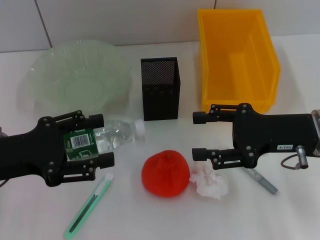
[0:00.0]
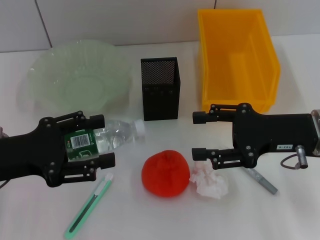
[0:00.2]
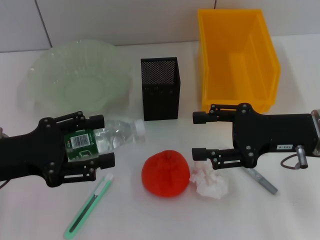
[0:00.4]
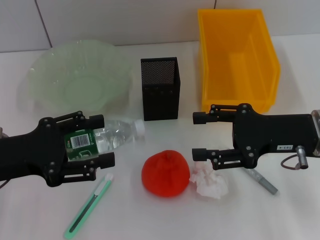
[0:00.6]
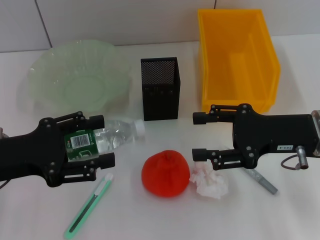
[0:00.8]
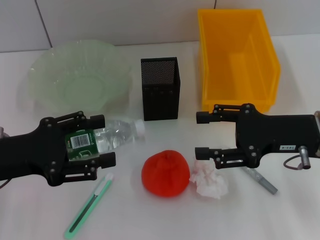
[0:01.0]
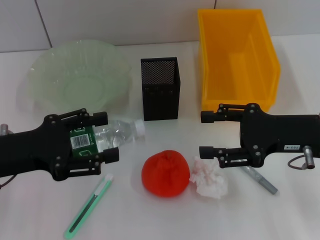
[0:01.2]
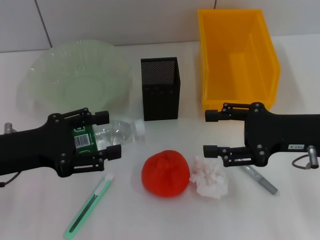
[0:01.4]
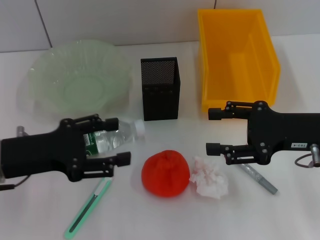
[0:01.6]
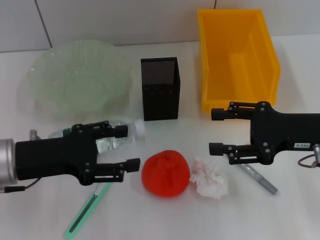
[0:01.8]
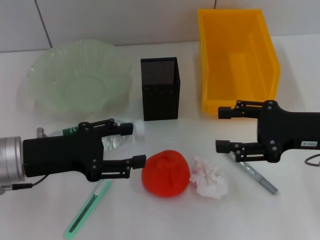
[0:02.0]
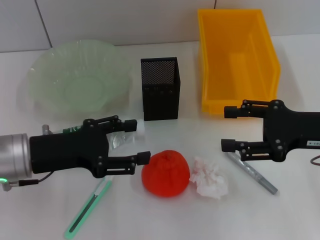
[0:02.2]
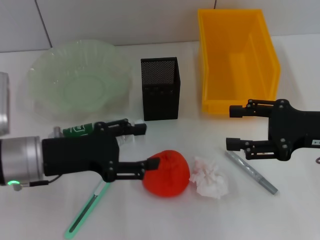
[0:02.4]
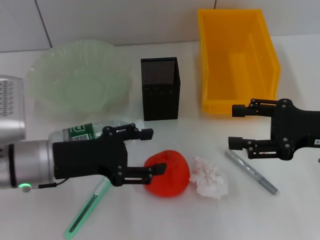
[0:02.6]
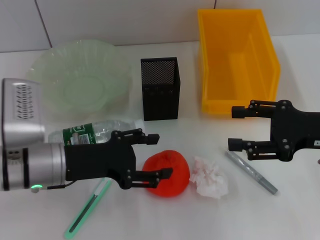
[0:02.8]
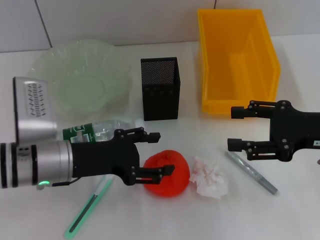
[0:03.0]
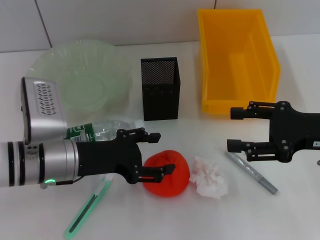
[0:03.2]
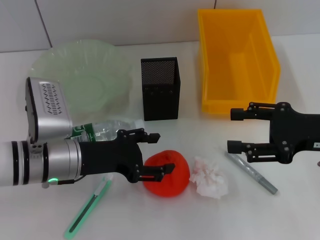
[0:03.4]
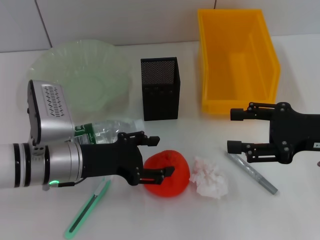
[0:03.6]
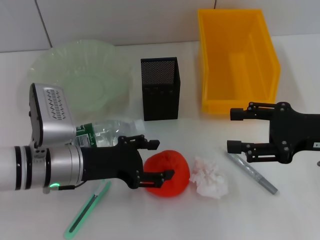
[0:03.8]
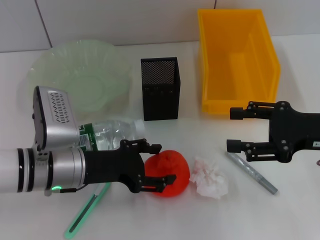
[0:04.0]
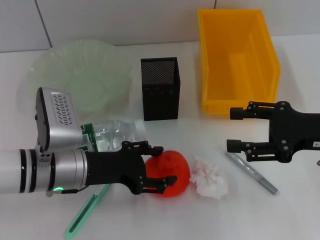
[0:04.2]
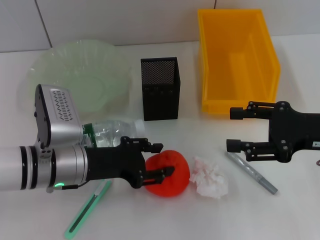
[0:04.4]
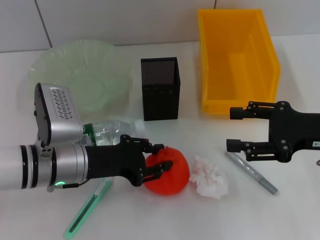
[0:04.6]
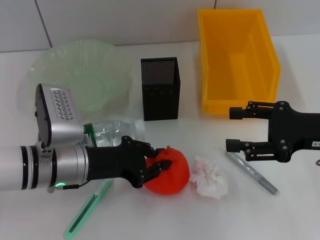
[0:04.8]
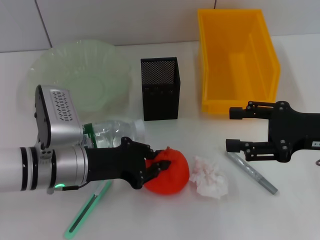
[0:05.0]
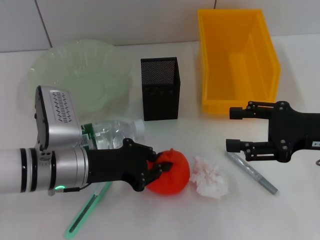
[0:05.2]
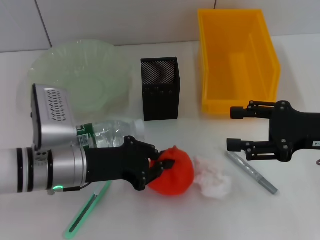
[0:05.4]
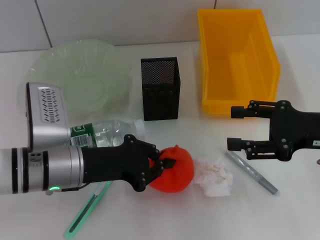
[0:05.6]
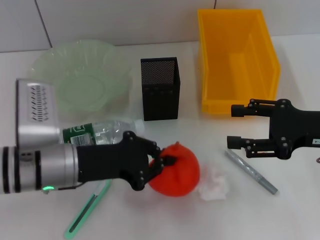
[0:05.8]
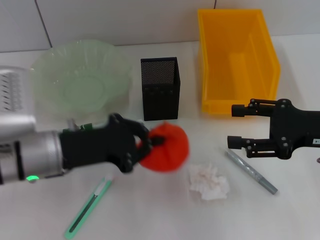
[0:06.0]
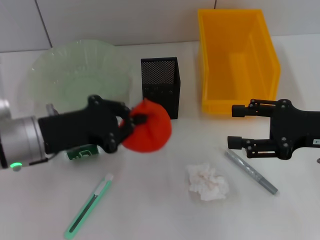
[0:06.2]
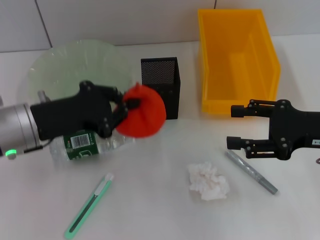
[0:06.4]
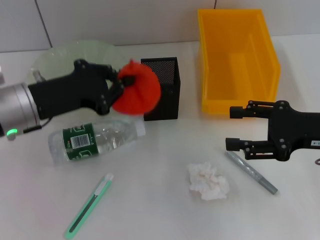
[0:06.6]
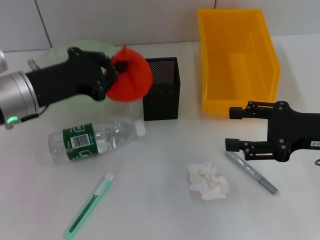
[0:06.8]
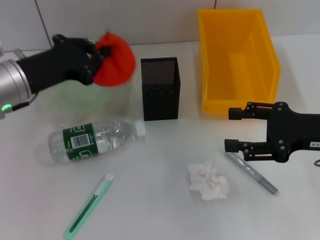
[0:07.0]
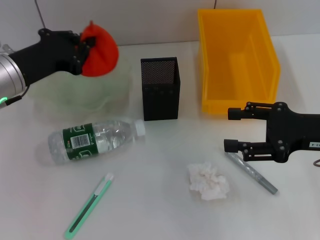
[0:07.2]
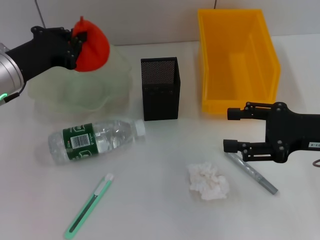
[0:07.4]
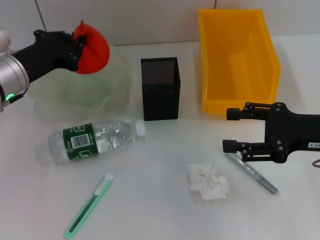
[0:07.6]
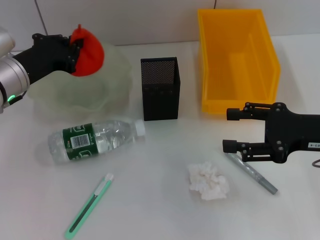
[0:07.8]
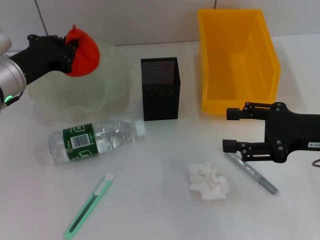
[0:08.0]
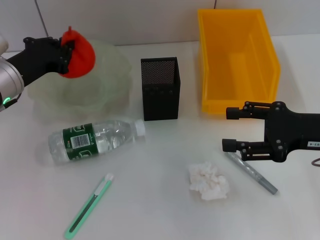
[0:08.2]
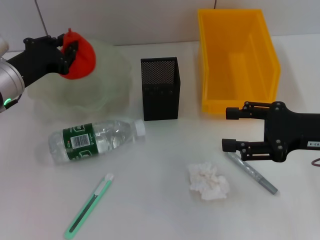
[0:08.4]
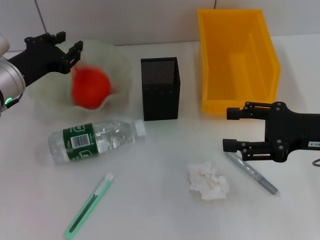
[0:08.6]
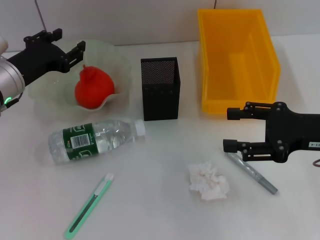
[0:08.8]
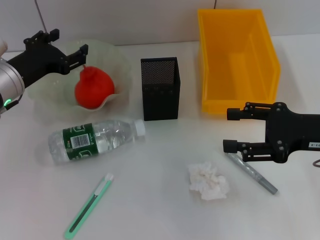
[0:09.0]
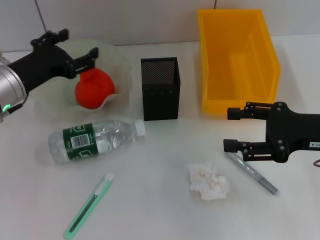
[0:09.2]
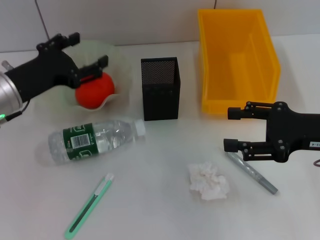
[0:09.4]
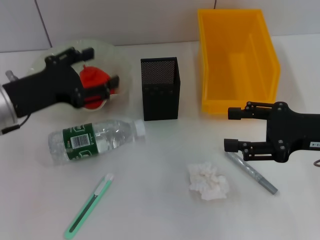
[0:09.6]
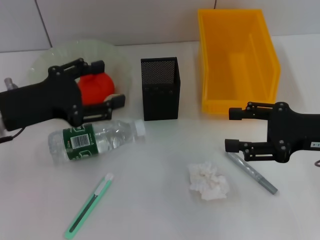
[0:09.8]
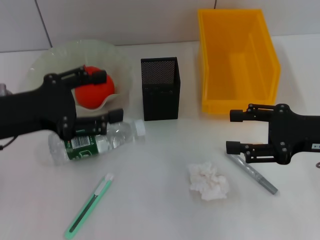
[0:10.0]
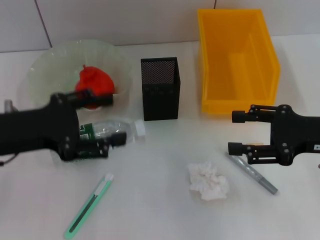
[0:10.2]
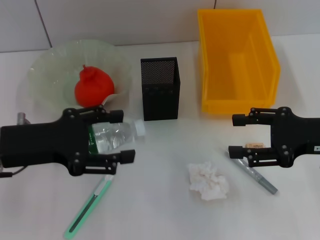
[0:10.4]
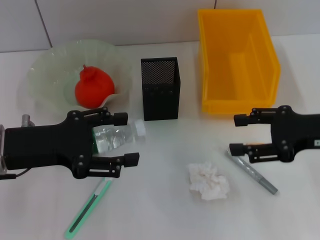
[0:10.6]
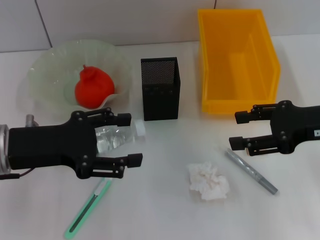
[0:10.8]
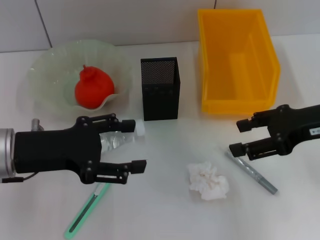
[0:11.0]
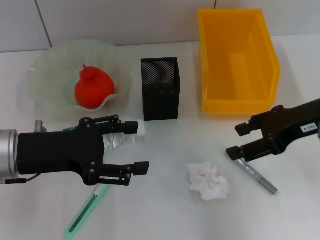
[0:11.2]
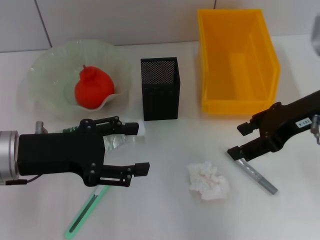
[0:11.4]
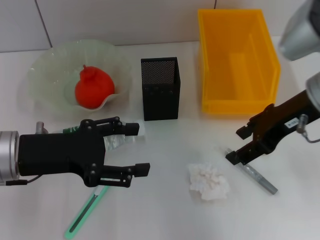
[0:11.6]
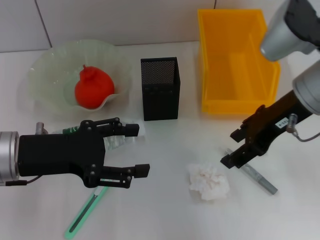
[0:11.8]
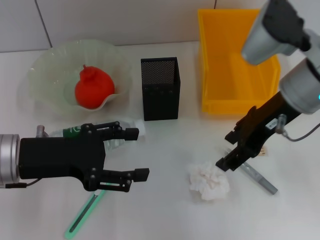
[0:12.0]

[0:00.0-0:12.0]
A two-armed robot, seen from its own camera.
Step, 0:00.0 to 0:05.4: Grab the orange with the left hand.
Step, 0:05.8 to 0:08.8: Place the orange into the fruit bowl with the left hand.
0:00.0 to 0:01.6: The grippers move only a little.
0:01.6 to 0:03.0: The left gripper shifts about 5 cm to the right.
0:03.0 to 0:04.4: The grippers make only small movements.
0:04.4 to 0:06.0: The left gripper closes up.
0:06.0 to 0:07.6: The left gripper moves forward and to the left, approximately 10 cm.
0:07.6 to 0:09.0: The left gripper opens.
0:09.0 to 0:10.4: The left gripper heads backward, covering about 10 cm, and opens up.
0:10.4 to 0:12.0: The right gripper goes approximately 15 cm to the left, upward and forward.

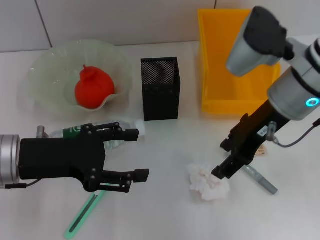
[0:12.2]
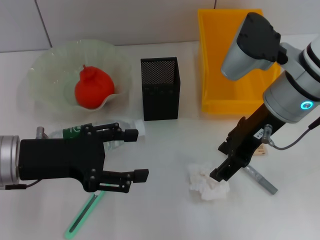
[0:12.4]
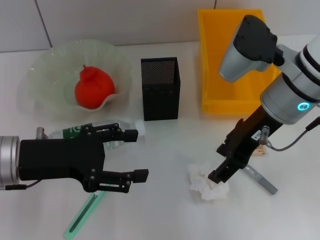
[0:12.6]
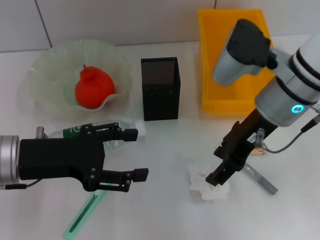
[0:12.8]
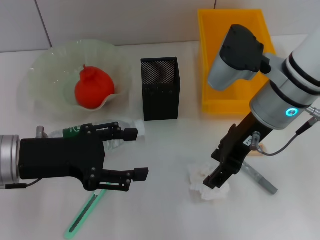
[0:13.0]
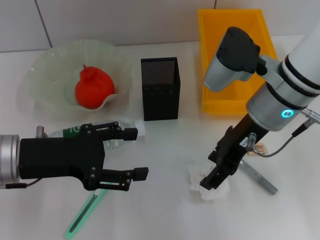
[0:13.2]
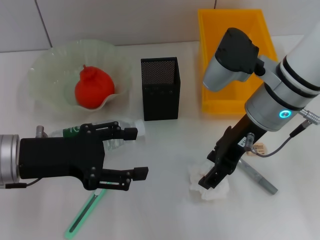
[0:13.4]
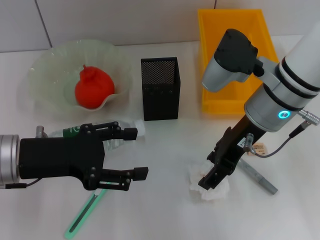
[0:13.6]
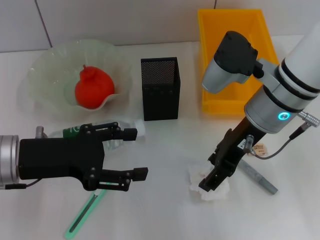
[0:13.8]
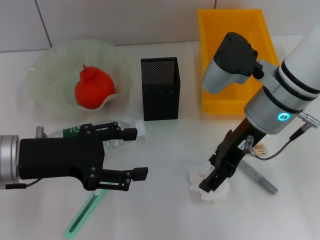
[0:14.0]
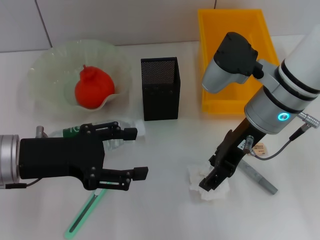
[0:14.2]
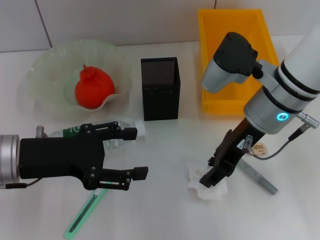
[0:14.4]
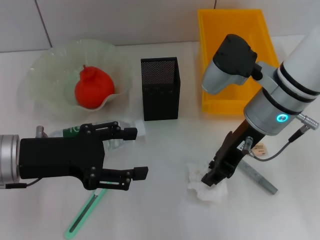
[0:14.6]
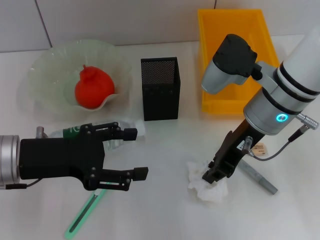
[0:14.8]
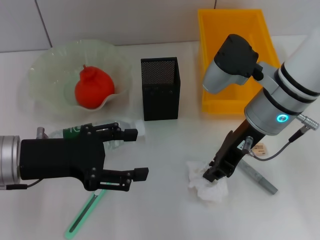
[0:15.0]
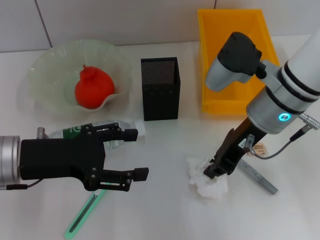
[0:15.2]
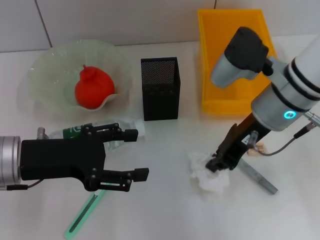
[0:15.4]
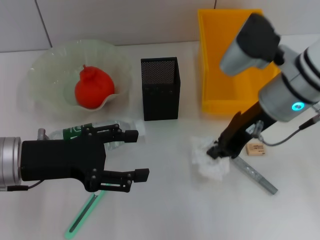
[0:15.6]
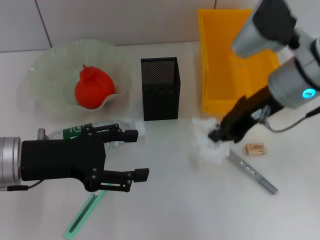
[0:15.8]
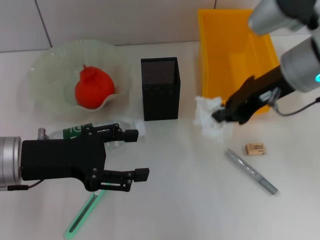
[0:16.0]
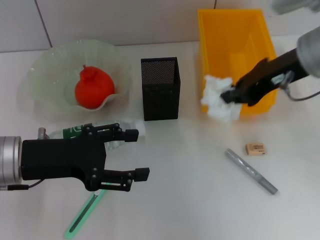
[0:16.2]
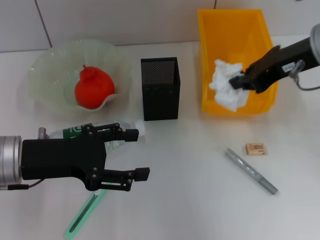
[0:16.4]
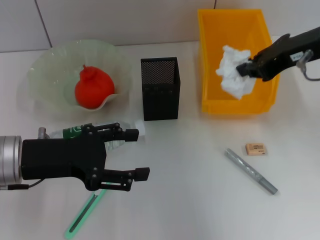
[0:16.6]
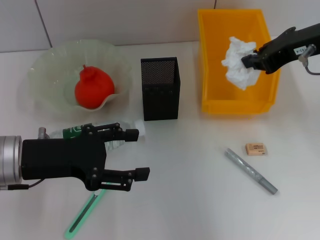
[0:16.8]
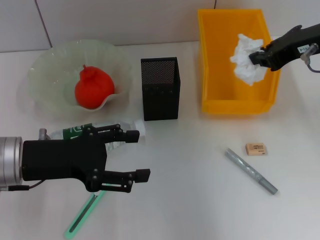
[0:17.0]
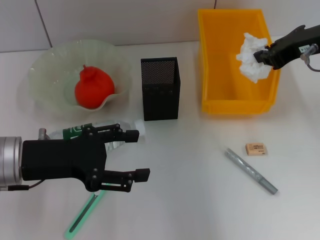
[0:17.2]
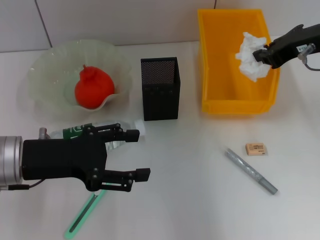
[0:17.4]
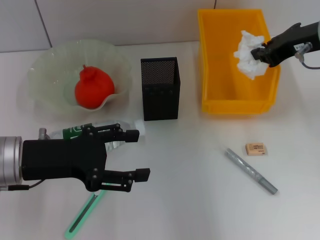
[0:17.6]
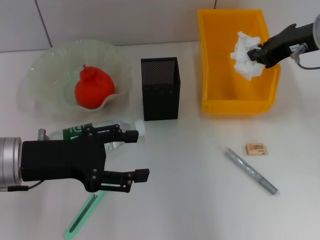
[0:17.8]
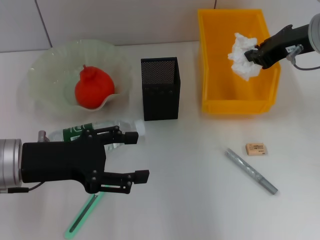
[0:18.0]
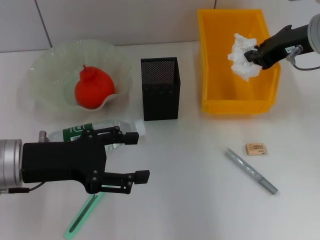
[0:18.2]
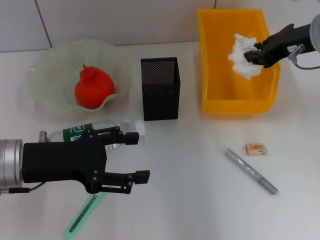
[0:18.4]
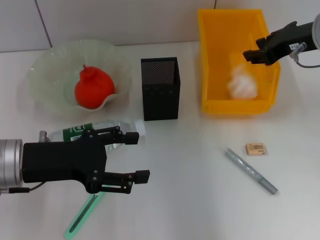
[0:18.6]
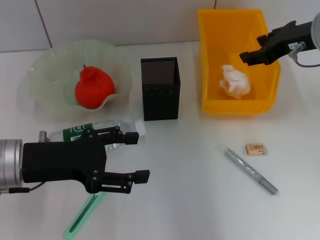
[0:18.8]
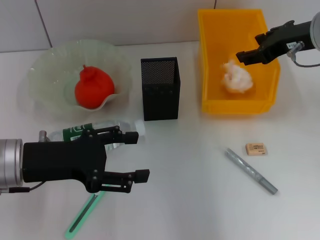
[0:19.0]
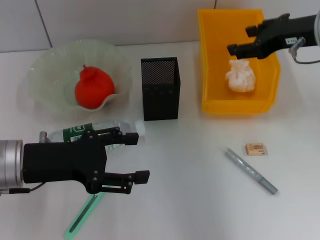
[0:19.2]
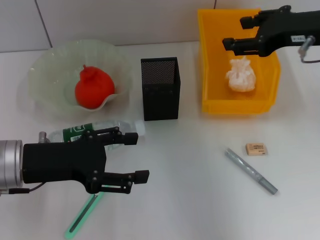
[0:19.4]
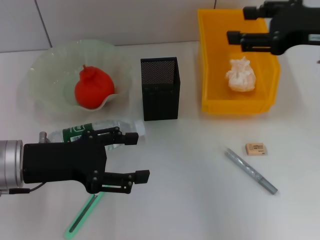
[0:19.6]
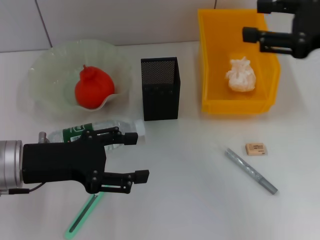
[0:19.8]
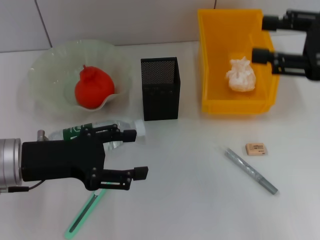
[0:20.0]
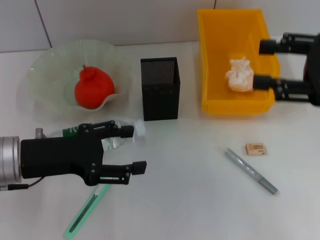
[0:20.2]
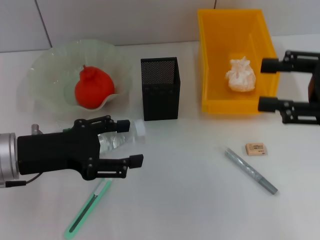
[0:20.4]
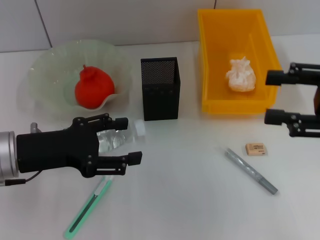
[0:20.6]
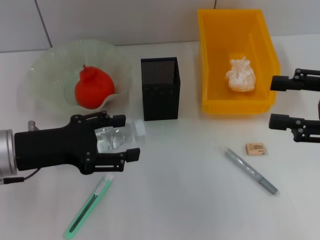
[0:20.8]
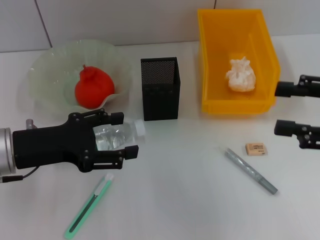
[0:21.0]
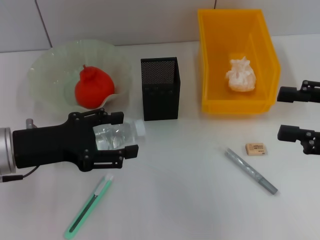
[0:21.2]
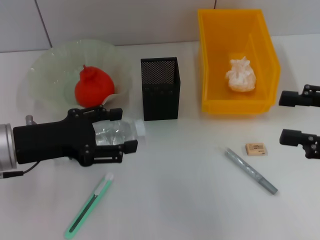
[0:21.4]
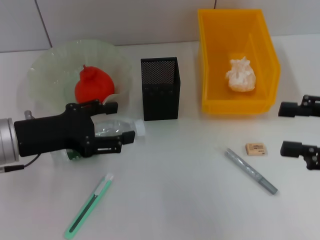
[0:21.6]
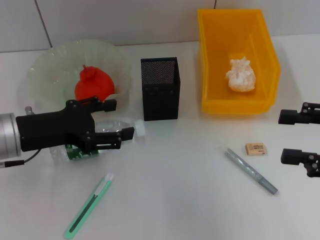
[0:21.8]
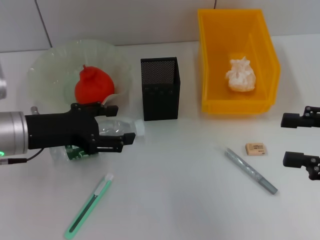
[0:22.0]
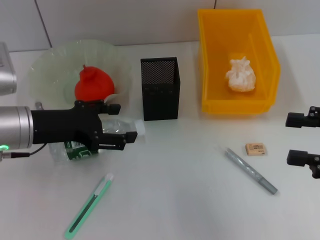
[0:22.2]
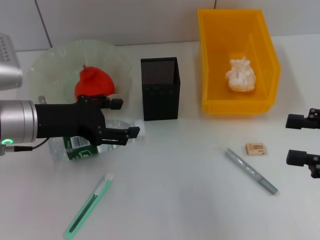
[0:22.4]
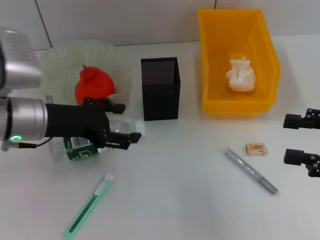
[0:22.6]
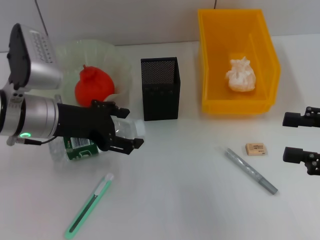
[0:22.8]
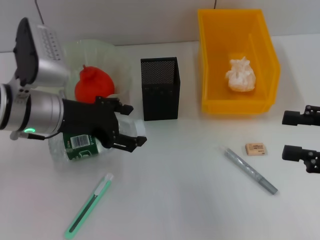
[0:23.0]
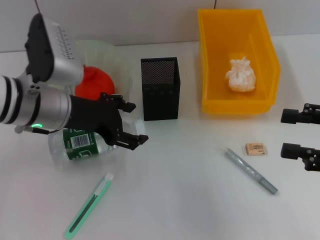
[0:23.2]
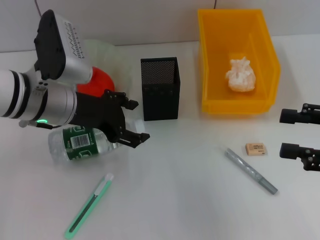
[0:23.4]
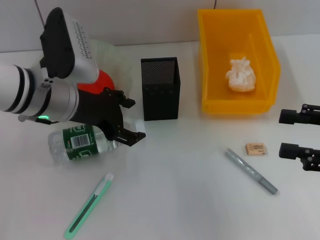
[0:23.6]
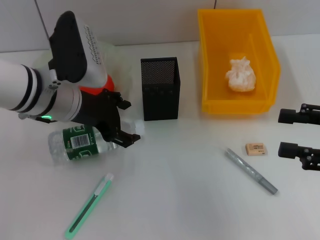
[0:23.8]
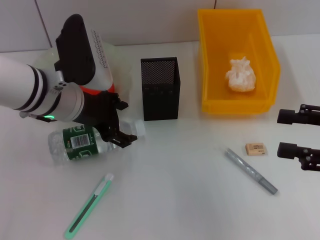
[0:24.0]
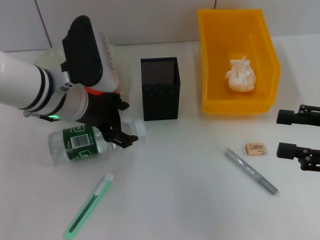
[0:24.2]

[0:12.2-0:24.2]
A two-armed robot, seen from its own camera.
Step, 0:12.2 to 0:14.6: Grab the paper ball with the right hand.
Step, 0:14.8 to 0:19.4: Place the paper ball into the trash can with the right hand.
0:12.2 to 0:13.8: The grippers move only a little.
0:13.8 to 0:15.2: The right gripper closes.
0:15.2 to 0:16.6: The right gripper heads upward and to the right, covering approximately 10 cm.
0:16.6 to 0:18.2: The right gripper moves approximately 5 cm.
0:18.2 to 0:19.8: The right gripper travels backward by some 10 cm, and opens up.
0:19.8 to 0:21.2: The right gripper moves backward and downward, some 10 cm.
0:21.2 to 0:22.6: The left gripper shifts roughly 5 cm forward.
0:22.6 to 0:24.2: The left gripper goes roughly 5 cm to the right.
